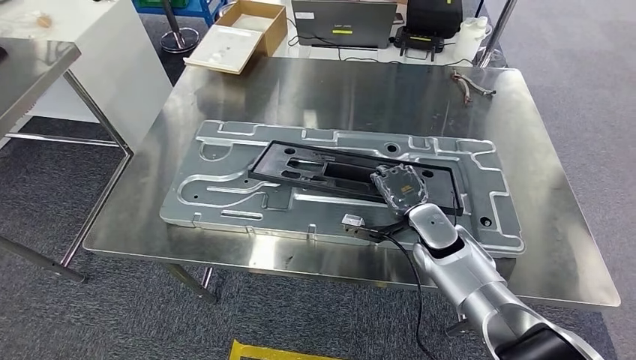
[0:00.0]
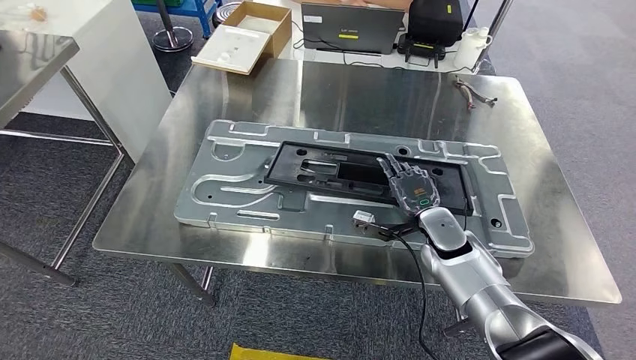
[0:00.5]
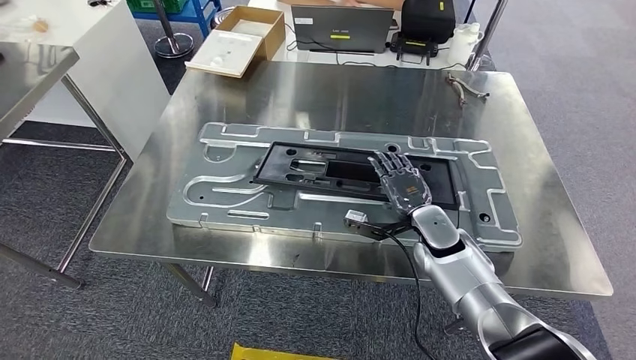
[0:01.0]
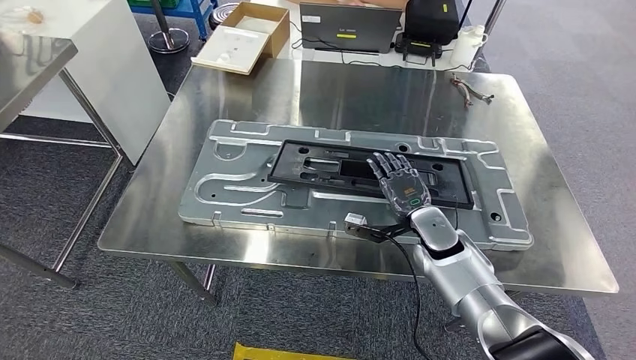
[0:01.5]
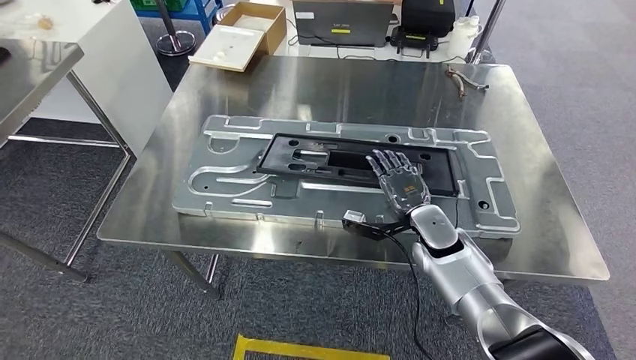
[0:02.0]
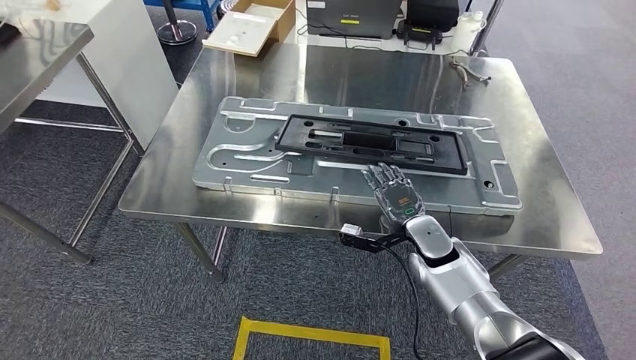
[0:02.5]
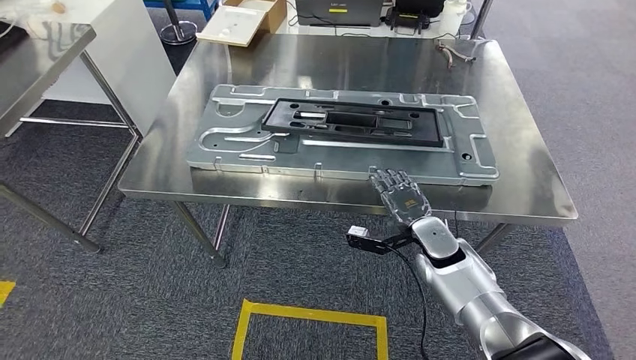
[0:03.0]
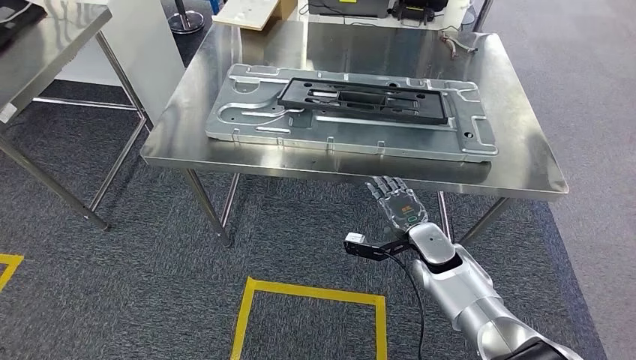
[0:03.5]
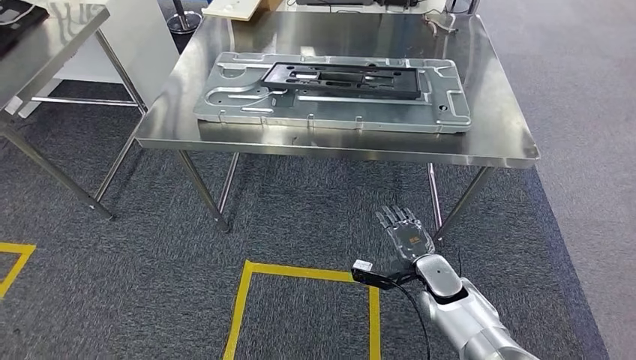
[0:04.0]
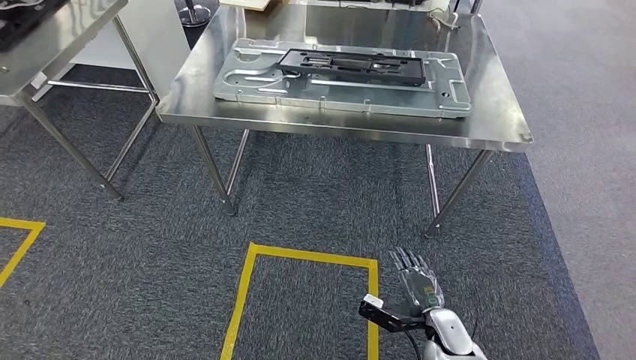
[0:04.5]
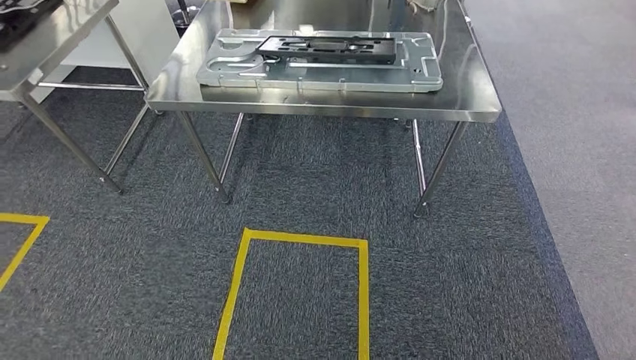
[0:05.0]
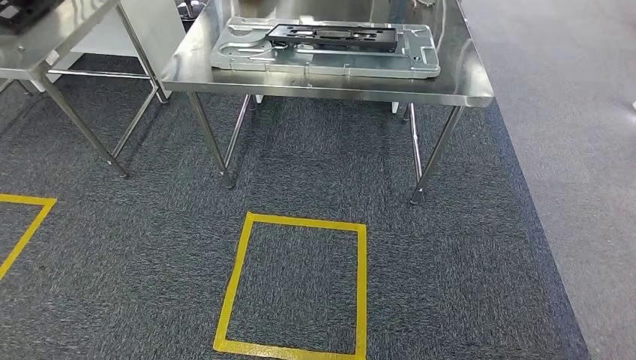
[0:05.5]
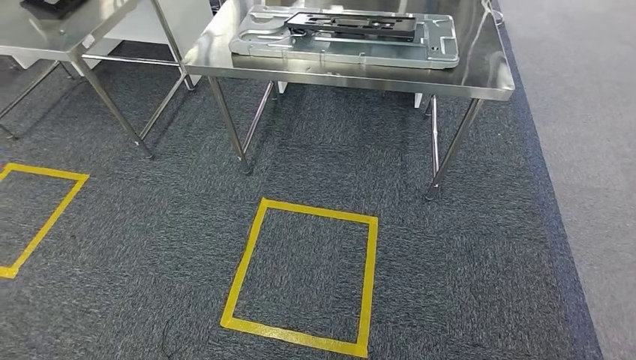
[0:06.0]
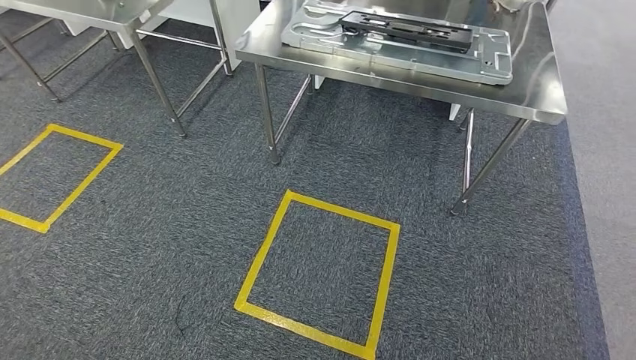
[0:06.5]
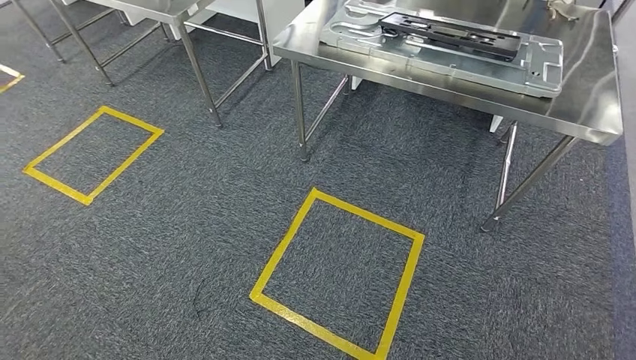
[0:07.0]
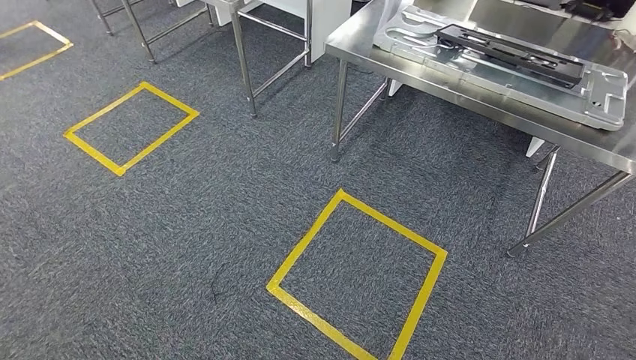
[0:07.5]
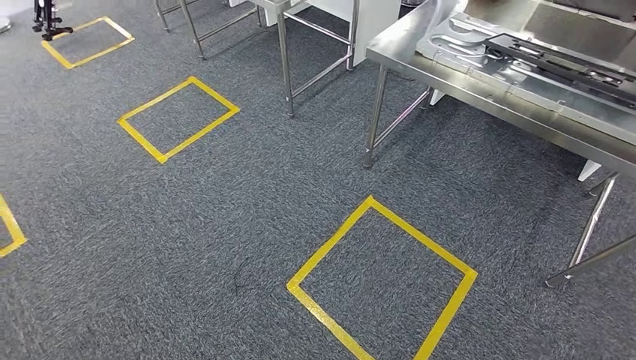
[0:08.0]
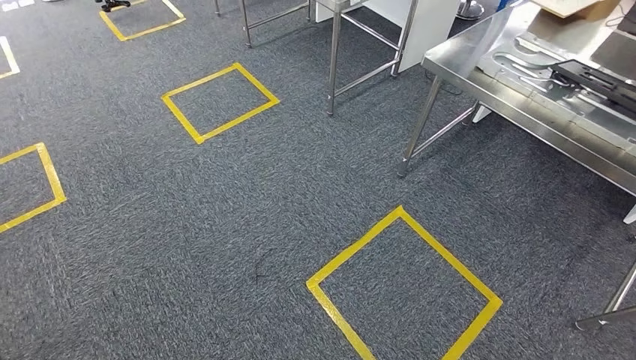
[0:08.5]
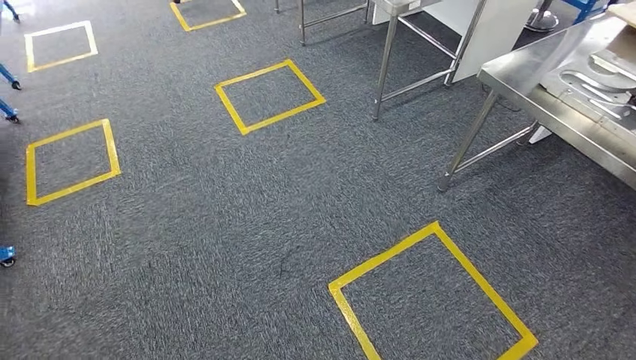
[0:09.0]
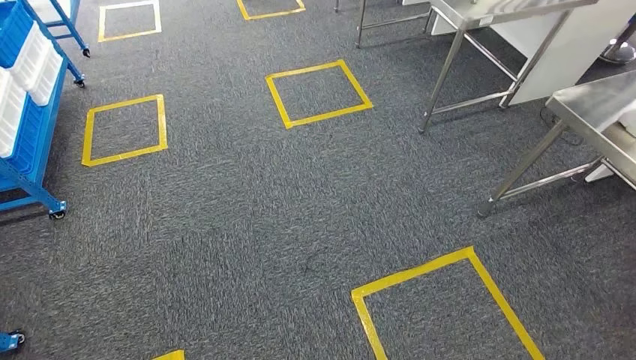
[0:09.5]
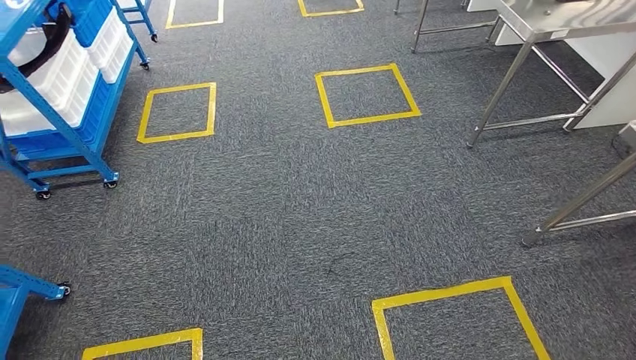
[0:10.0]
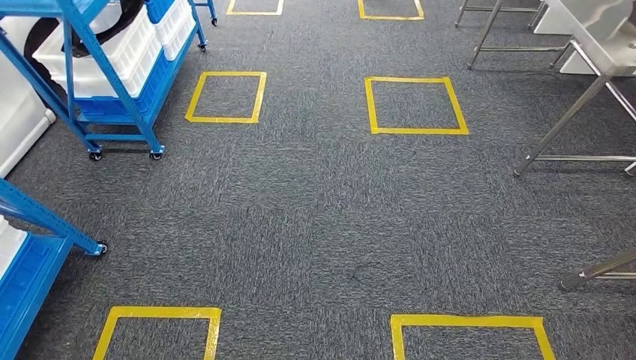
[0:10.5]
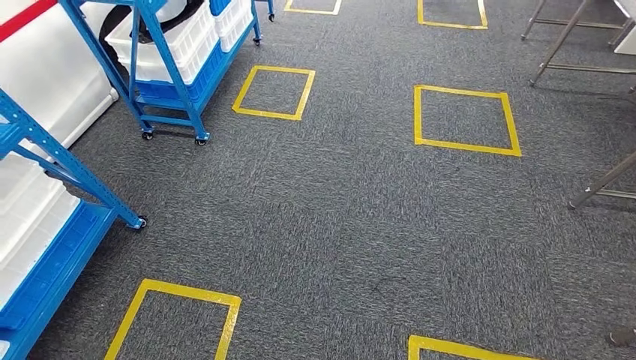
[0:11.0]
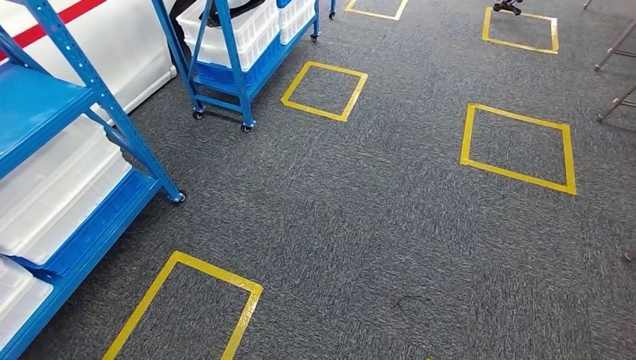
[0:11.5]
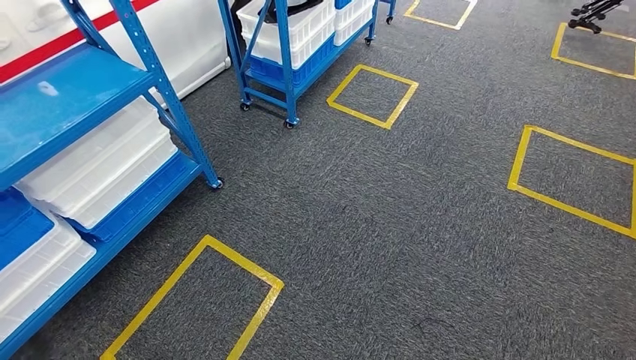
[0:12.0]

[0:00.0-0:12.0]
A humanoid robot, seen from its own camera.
Step, 0:00.0 to 0:05.0: Insert the large material into the corresponding slot on the workbench.

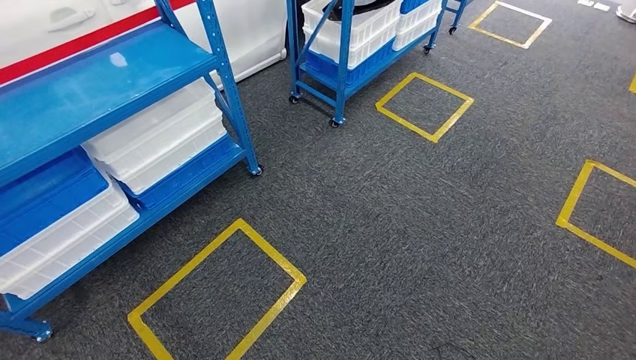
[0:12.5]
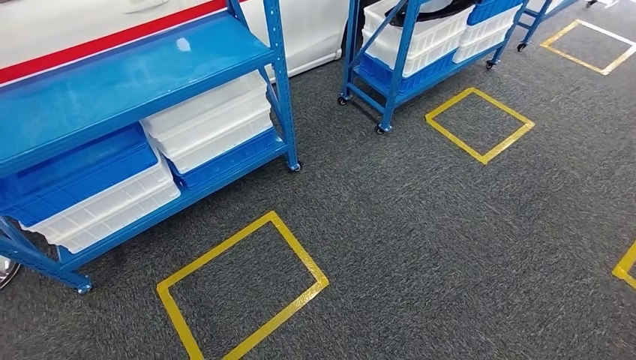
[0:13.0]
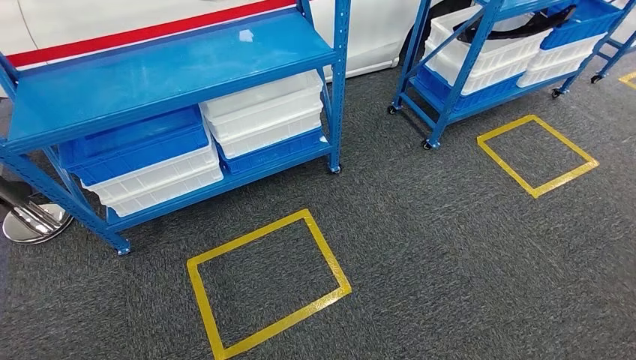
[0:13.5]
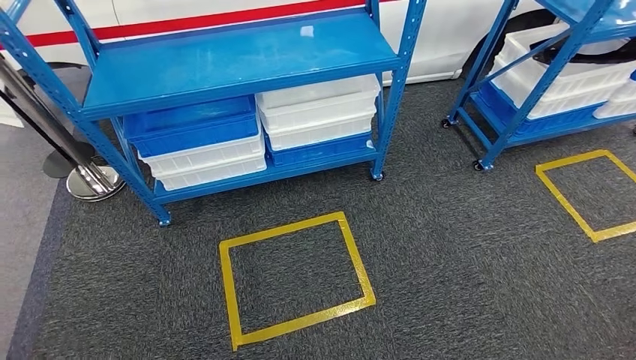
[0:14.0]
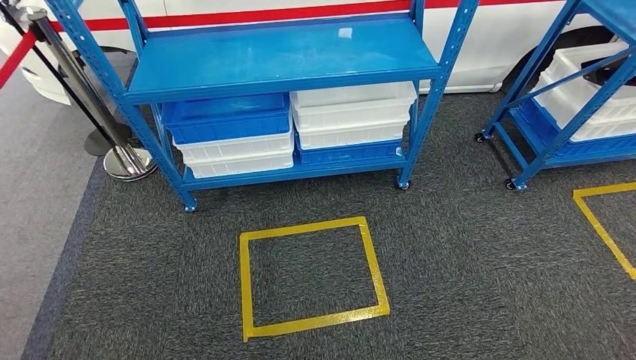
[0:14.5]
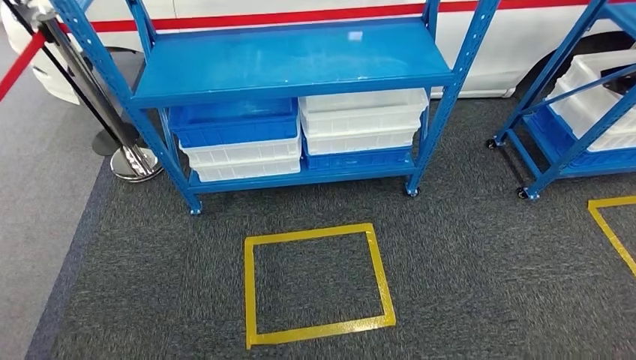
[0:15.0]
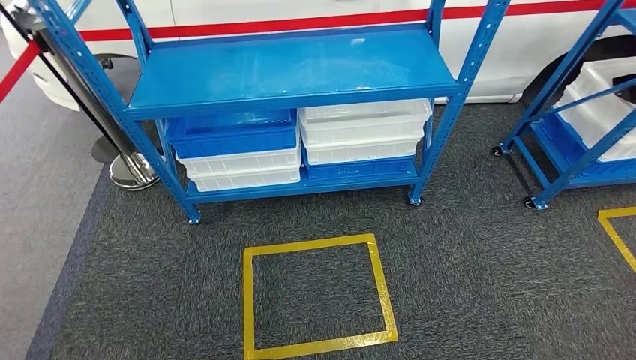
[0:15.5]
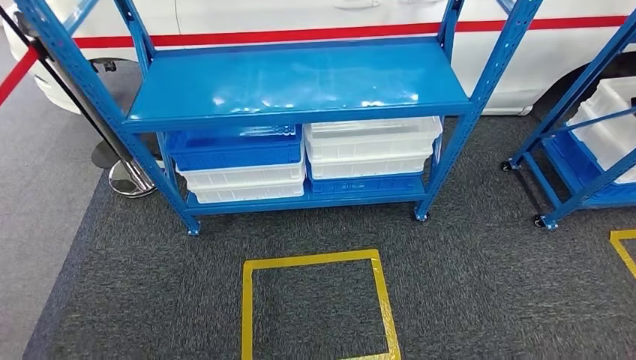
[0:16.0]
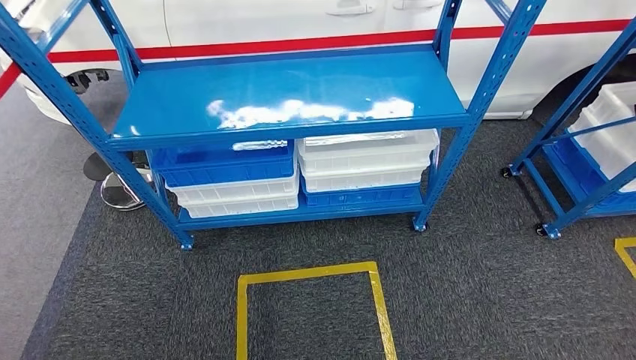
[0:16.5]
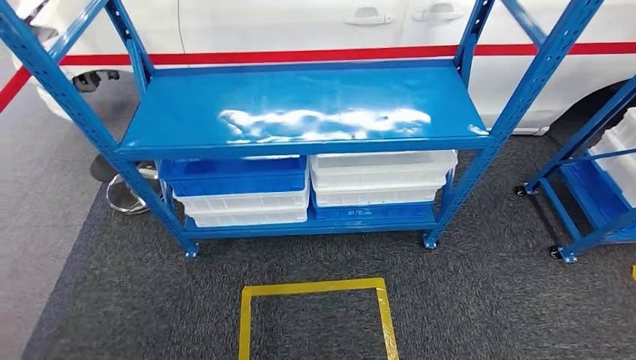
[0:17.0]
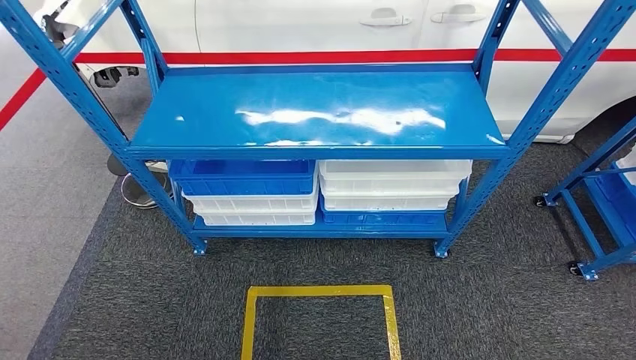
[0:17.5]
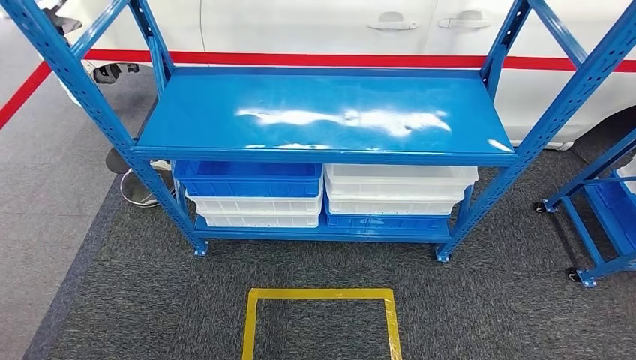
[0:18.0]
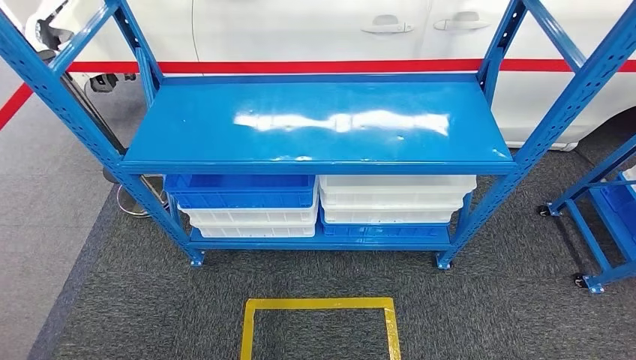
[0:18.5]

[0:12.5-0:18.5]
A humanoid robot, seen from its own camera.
Step, 0:12.5 to 0:18.5: Move to the initial position of the shelf.

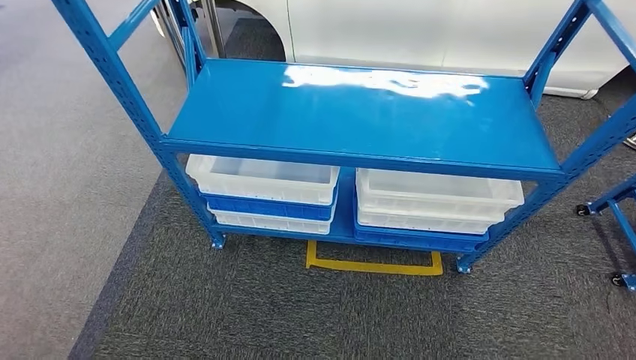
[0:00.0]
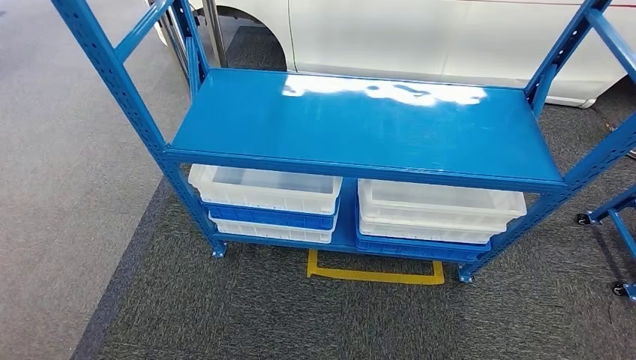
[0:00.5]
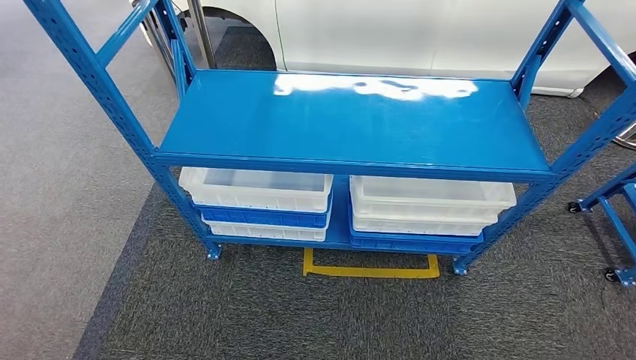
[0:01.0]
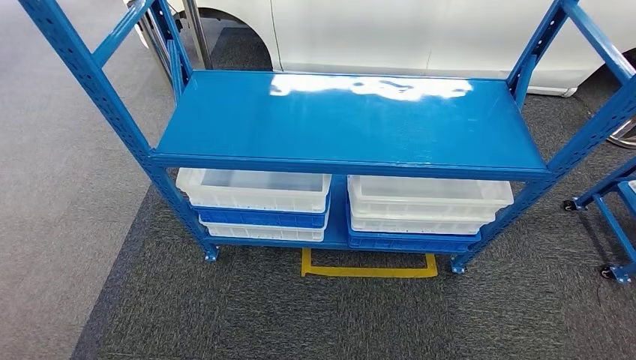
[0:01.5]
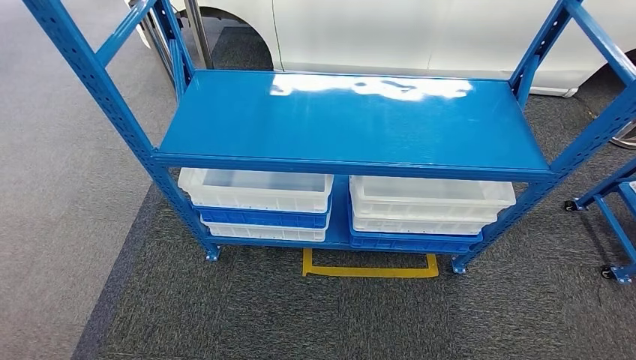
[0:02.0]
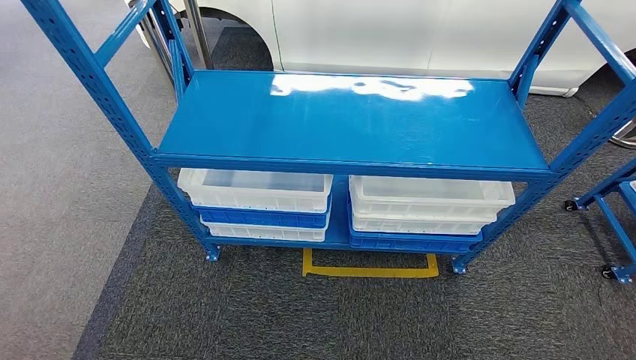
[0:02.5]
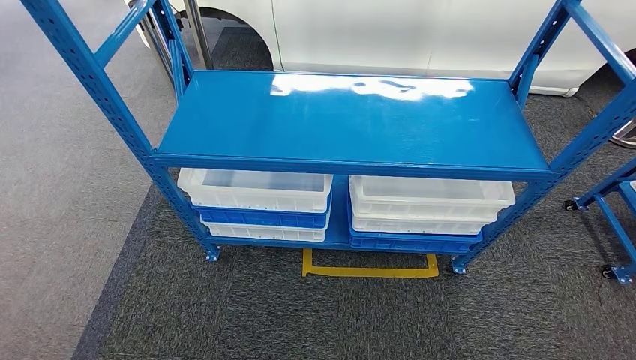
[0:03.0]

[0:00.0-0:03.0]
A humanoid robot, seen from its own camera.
Step, 0:00.0 to 0:03.0: Move to the initial position of the shelf.
0:01.5 to 0:03.0: There are only small adjustments of the hands.
